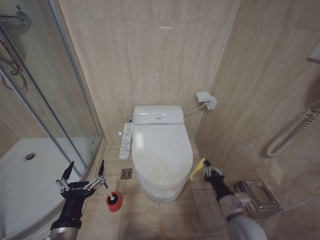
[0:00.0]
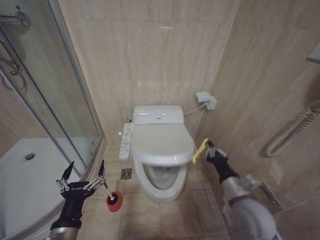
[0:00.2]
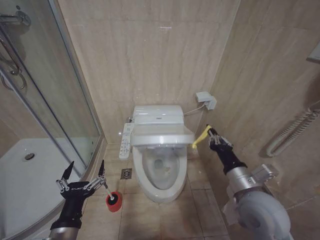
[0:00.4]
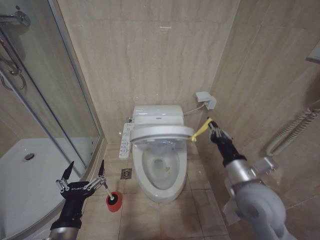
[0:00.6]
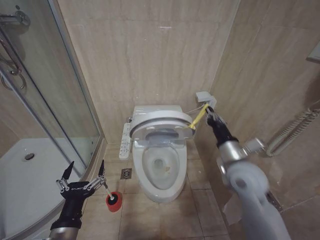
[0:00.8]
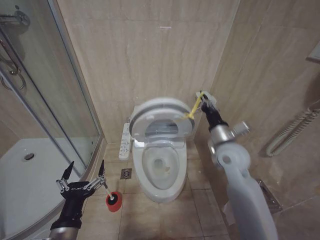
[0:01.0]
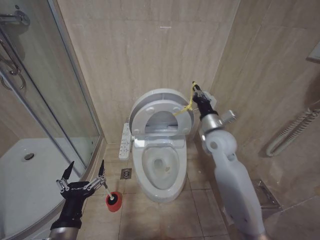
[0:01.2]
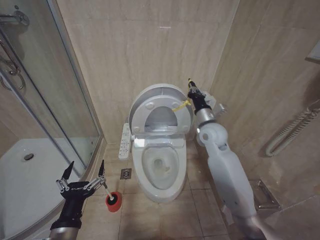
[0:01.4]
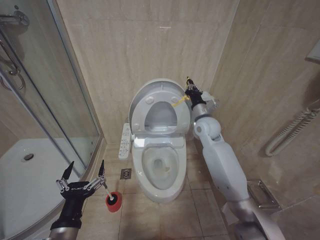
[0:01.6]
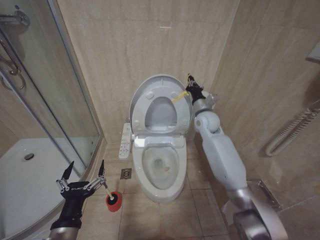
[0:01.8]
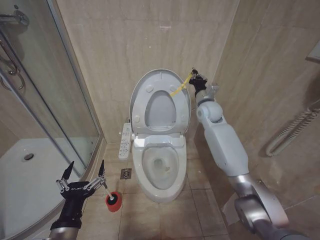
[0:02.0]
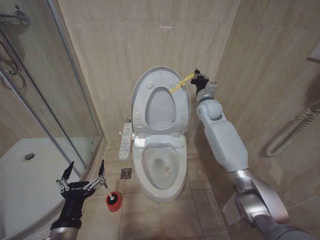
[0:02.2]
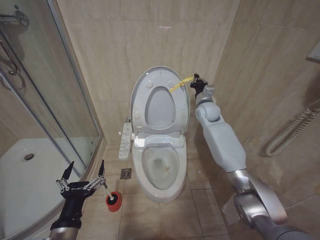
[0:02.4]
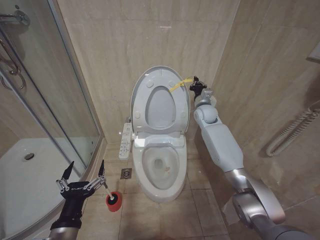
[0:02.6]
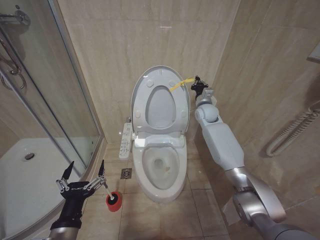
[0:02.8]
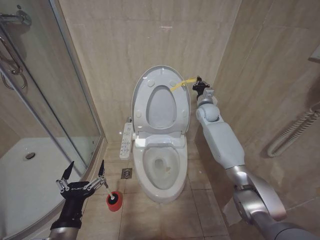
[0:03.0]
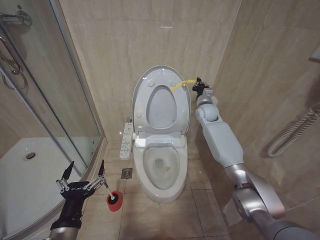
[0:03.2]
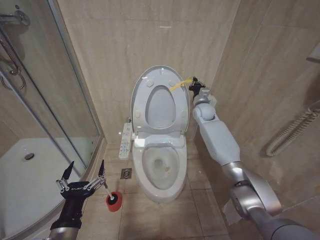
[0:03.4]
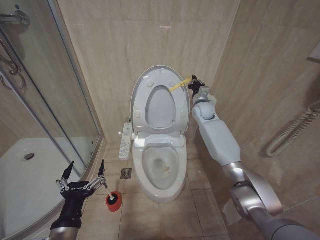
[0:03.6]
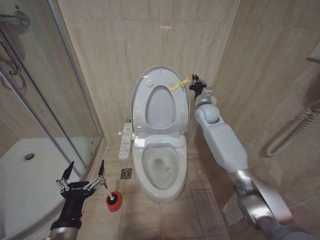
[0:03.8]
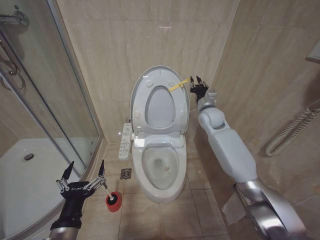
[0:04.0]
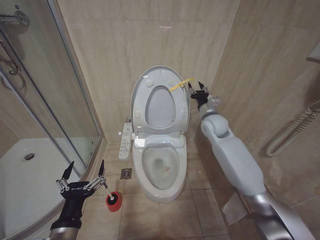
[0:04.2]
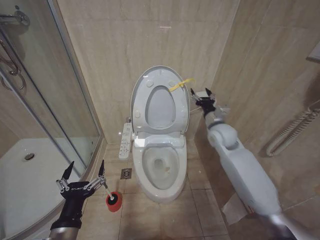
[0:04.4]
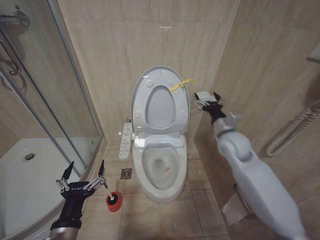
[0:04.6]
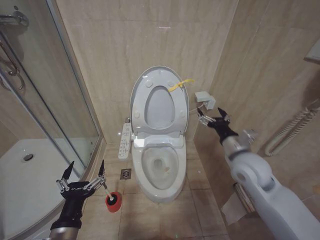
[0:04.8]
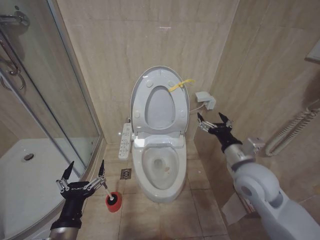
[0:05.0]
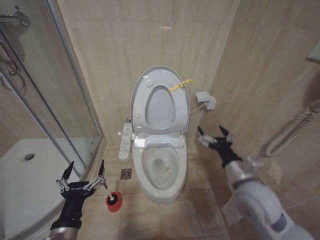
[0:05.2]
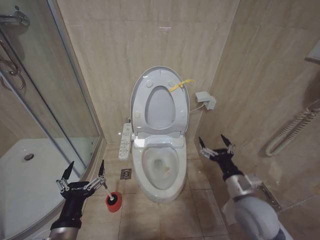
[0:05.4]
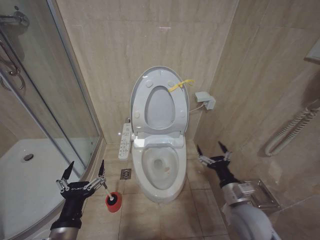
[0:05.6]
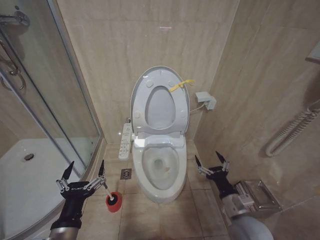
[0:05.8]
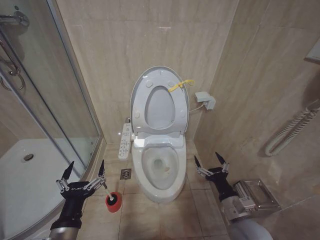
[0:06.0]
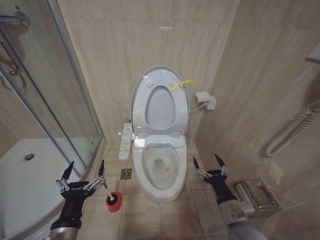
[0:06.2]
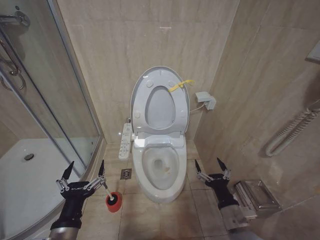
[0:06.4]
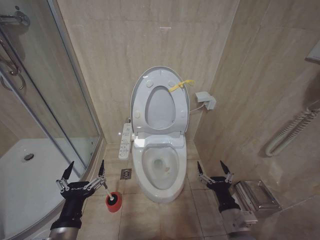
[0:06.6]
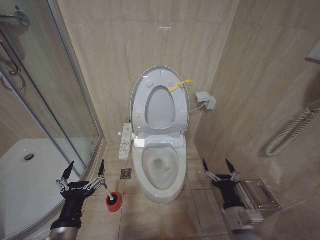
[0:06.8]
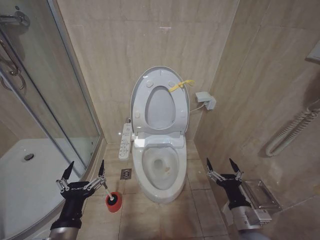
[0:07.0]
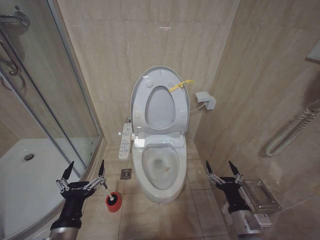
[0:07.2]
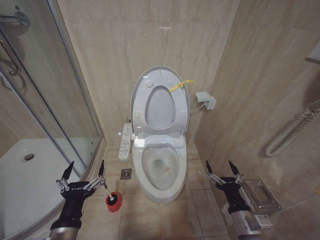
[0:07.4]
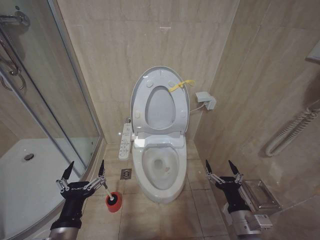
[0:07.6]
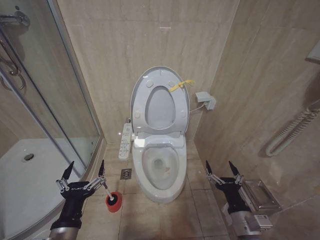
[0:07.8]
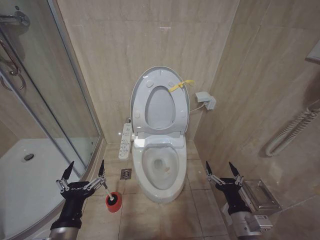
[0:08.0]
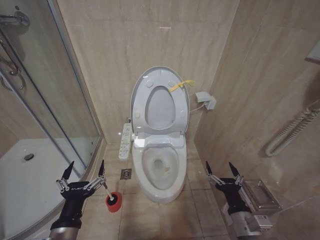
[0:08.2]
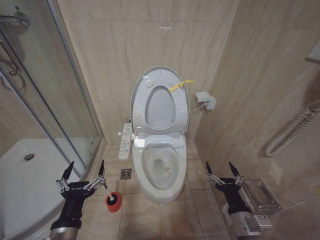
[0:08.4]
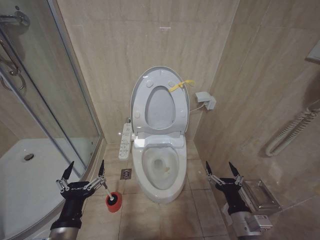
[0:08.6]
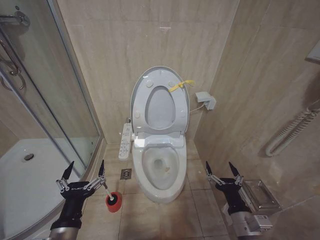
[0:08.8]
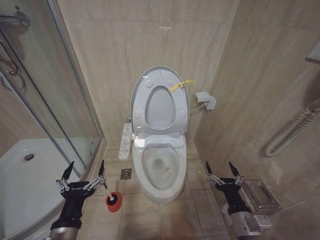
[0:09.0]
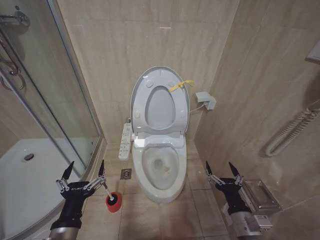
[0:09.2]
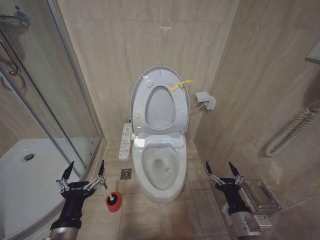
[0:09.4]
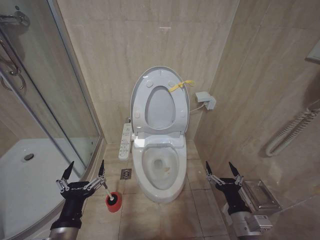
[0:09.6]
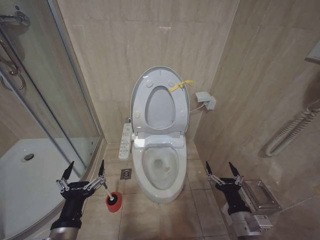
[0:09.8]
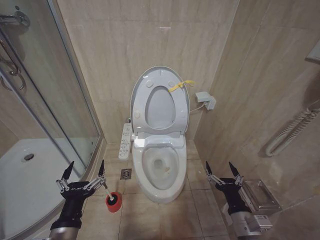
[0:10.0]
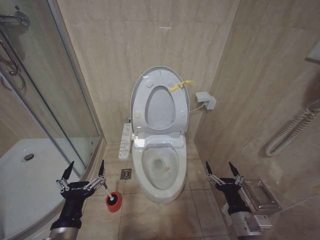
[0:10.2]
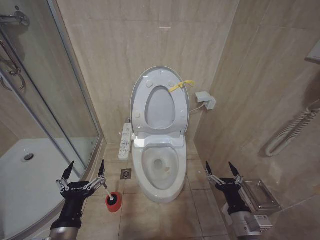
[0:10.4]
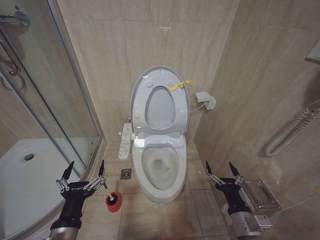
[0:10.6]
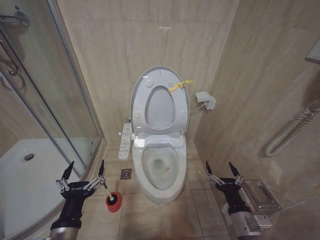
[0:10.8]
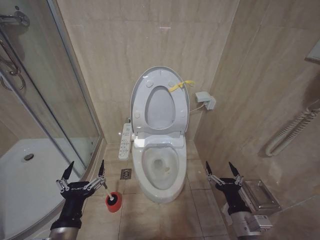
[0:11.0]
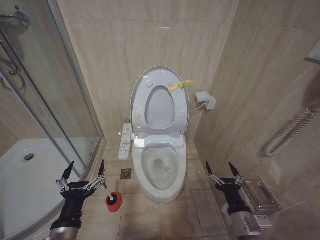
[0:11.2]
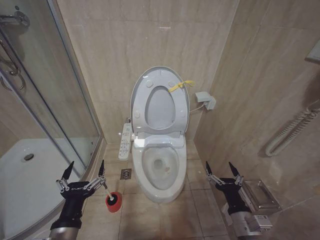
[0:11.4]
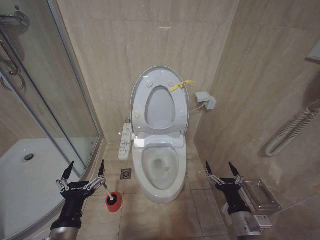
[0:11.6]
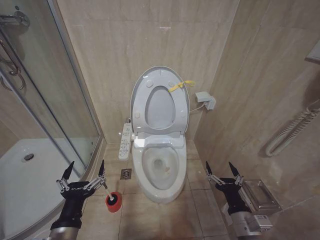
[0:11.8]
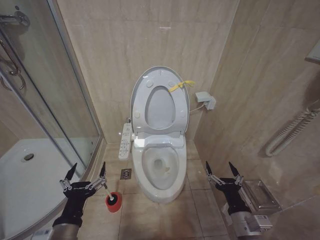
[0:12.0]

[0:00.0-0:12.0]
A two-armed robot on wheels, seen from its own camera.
Task of the whole recording: Open the toilet lid, clean the toilet bowl with a toilet brush, close the toilet lid, and flush.
0:00.0 to 0:01.6: The right gripper moves forward and upward, roughly 35 cm.
0:01.6 to 0:03.0: The right gripper moves forward, roughly 10 cm.
0:03.0 to 0:04.4: The right gripper is displaced backward by about 10 cm, and opens up.
0:04.4 to 0:06.0: The right gripper moves backward and downward, about 35 cm, and opens its fingers.
0:06.0 to 0:07.6: There are only small adjustments of the grippers.
0:07.6 to 0:12.0: Both grippers stay about where they are.

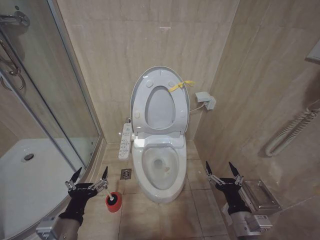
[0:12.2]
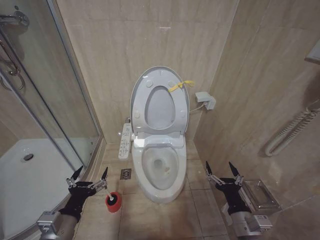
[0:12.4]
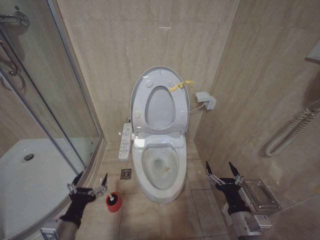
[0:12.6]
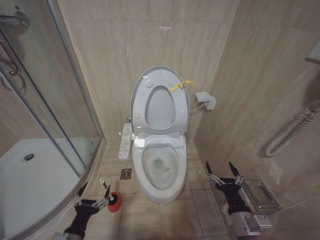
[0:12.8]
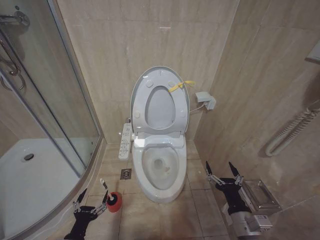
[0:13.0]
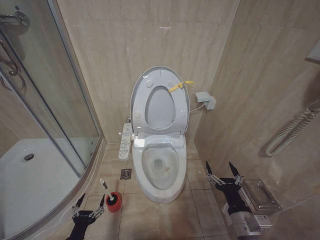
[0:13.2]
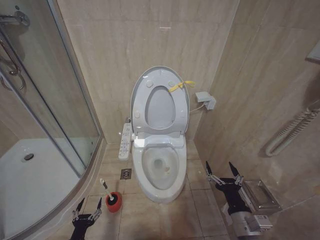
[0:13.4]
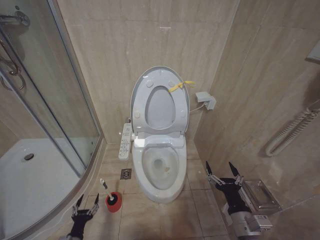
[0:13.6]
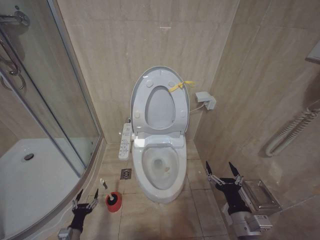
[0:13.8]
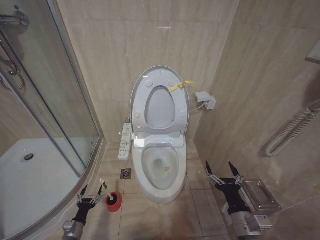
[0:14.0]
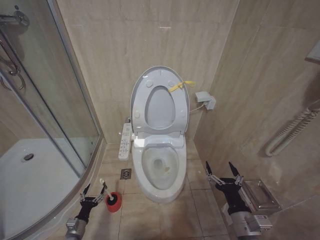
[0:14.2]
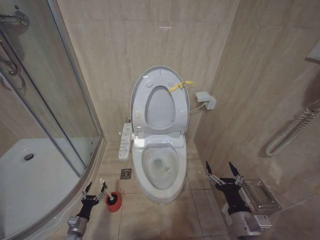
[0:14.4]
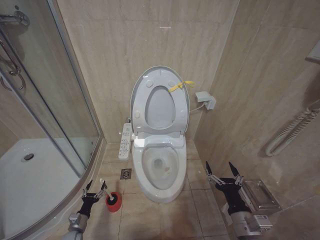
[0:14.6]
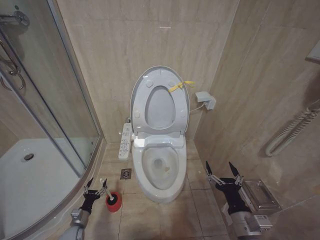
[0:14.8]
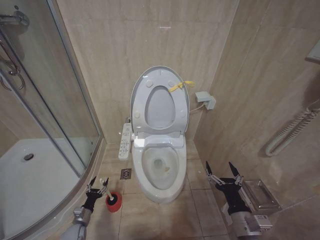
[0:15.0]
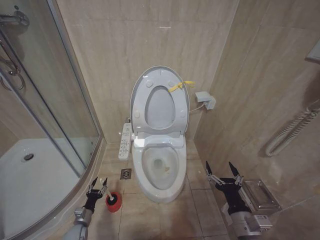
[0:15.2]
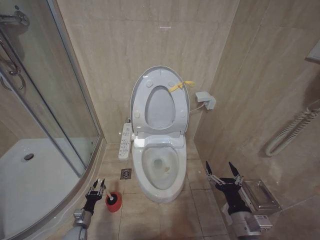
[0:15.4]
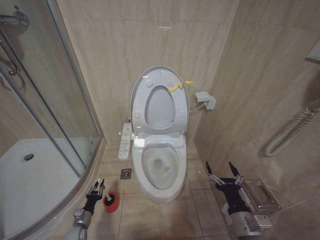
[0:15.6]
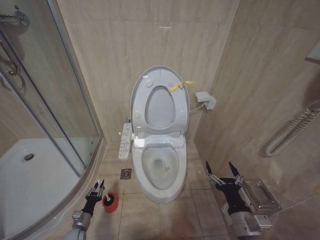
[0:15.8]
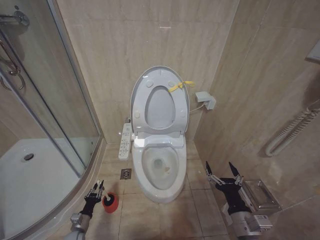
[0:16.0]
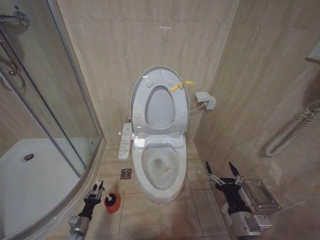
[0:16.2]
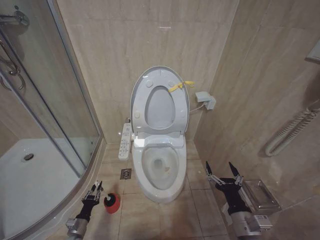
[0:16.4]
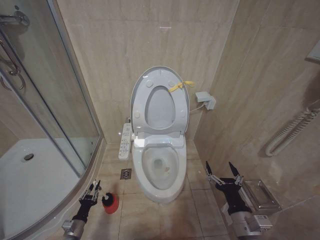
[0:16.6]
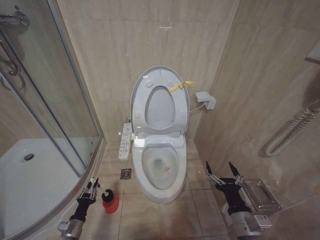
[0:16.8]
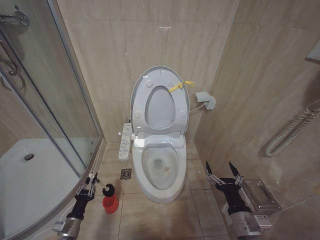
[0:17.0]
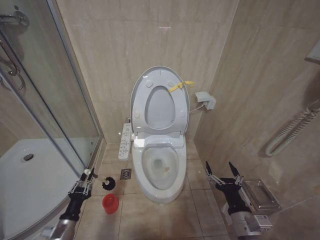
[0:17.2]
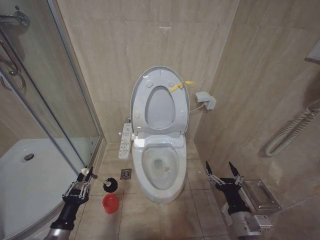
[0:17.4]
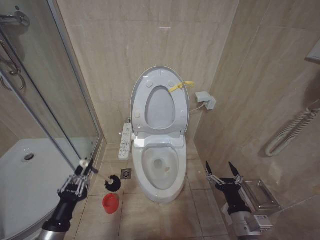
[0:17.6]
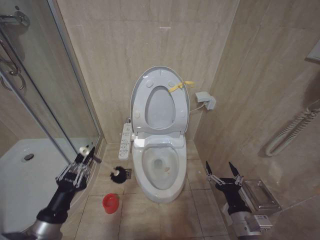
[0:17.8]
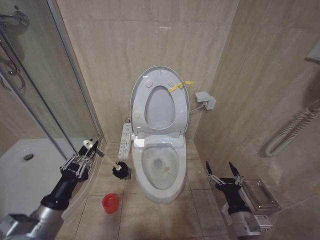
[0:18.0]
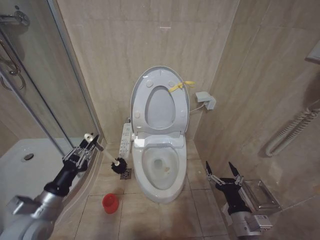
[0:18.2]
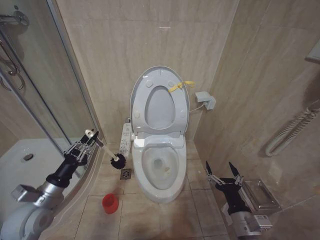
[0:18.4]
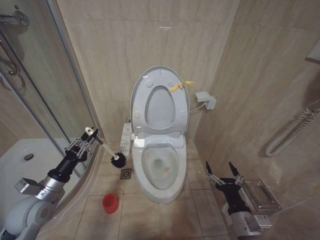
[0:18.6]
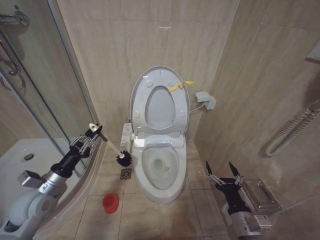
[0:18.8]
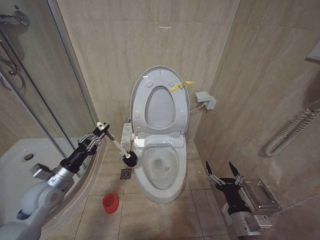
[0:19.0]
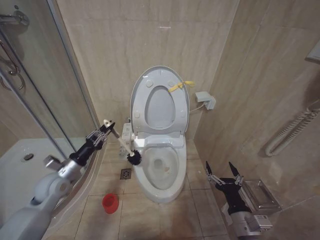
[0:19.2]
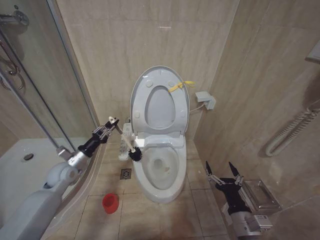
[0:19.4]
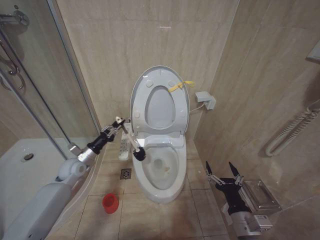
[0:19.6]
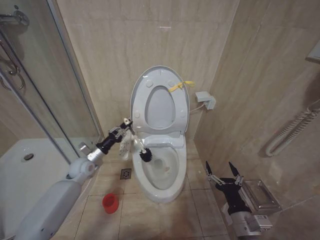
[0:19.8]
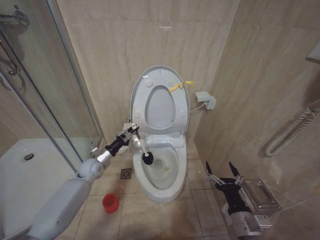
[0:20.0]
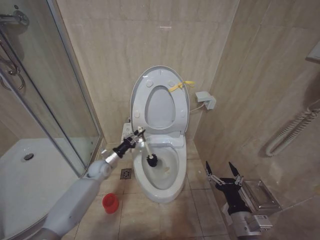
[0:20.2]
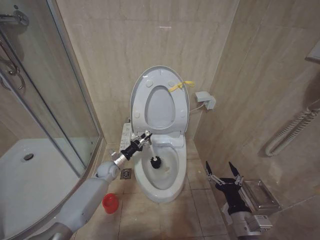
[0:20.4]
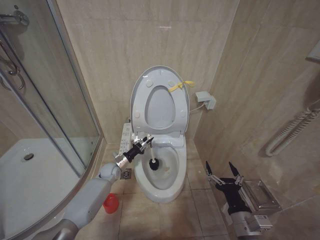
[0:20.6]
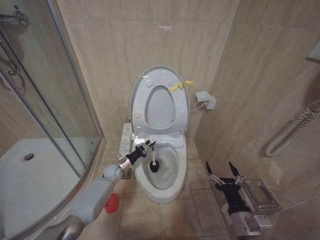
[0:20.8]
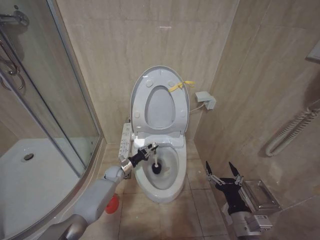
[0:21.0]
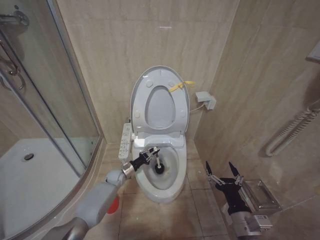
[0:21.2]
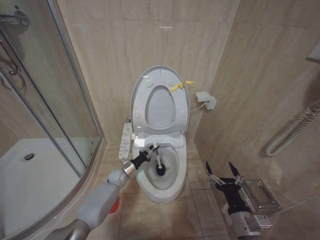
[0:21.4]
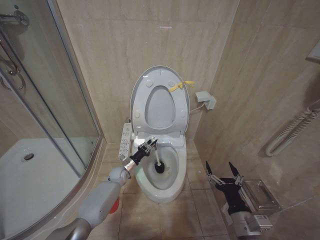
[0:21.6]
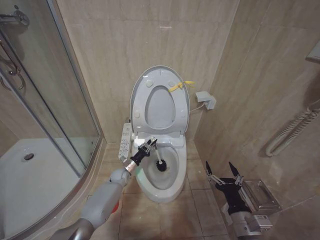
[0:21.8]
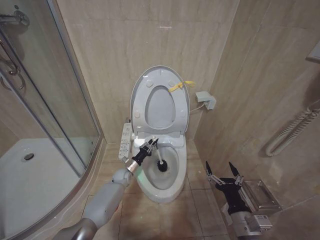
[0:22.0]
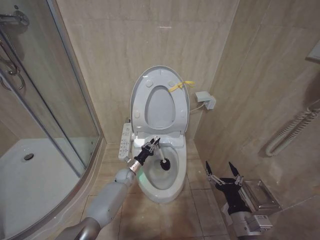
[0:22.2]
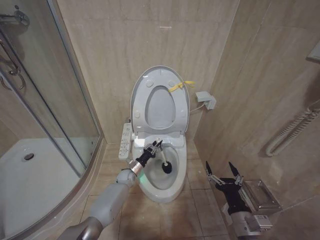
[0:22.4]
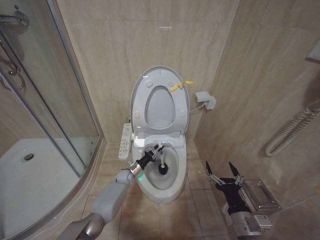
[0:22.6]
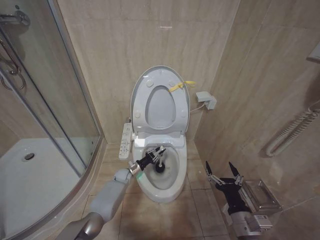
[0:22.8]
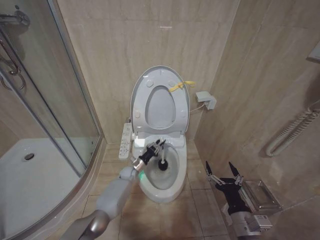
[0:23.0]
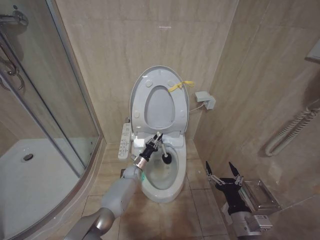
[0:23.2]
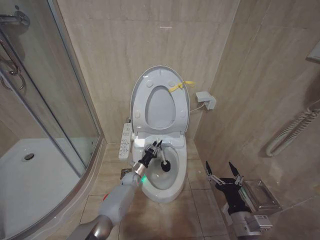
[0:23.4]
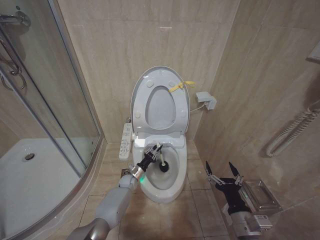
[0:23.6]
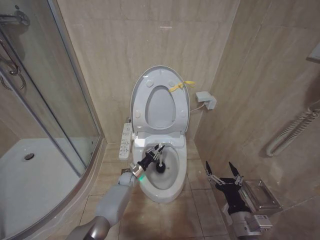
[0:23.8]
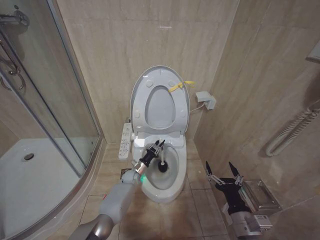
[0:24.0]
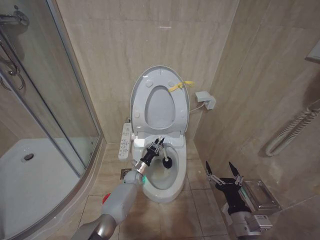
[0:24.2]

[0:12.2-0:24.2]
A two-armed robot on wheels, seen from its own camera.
Task of the whole recording: Open the toilet lid, clean the toilet bowl with a toilet brush, close the toilet lid, and flush.
0:12.2 to 0:13.8: The left gripper is displaced downward by about 30 cm.
0:13.8 to 0:15.2: The left gripper heads forward, covering about 10 cm.
0:15.2 to 0:16.6: The left gripper changes place by approximately 5 cm, and closes its fingers.
0:16.6 to 0:18.2: The left gripper is displaced upward by about 30 cm.
0:18.2 to 0:19.8: The left gripper heads forward, covering about 25 cm.
0:19.8 to 0:21.2: The left gripper is displaced downward and to the right by some 20 cm.
0:21.2 to 0:22.6: The left gripper shifts by approximately 5 cm.
0:22.6 to 0:24.2: There are only small adjustments of the grippers.
